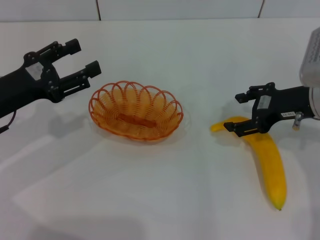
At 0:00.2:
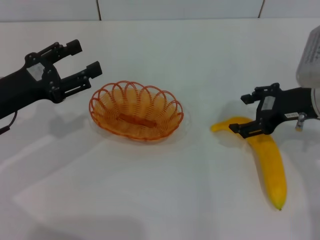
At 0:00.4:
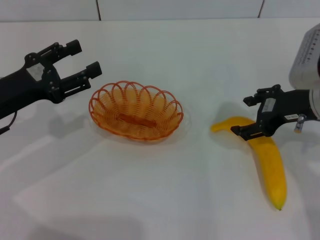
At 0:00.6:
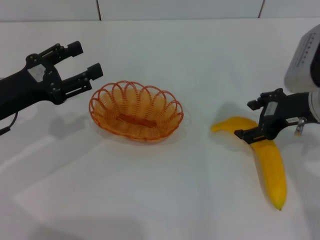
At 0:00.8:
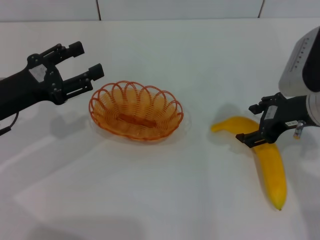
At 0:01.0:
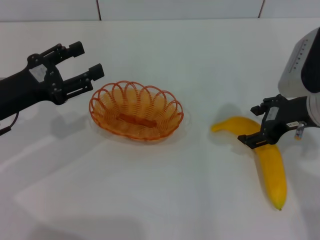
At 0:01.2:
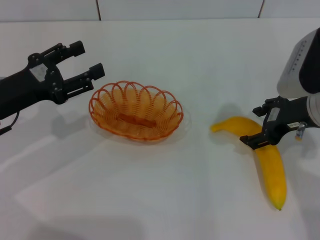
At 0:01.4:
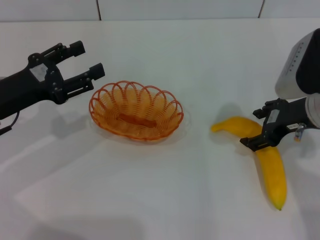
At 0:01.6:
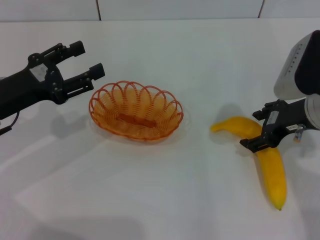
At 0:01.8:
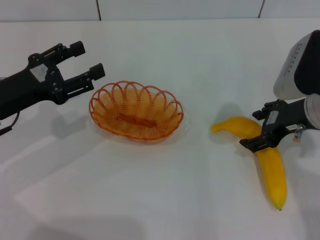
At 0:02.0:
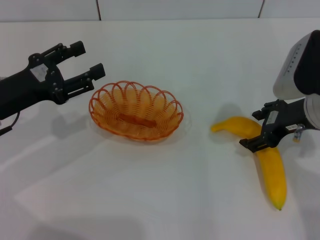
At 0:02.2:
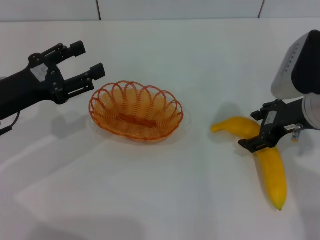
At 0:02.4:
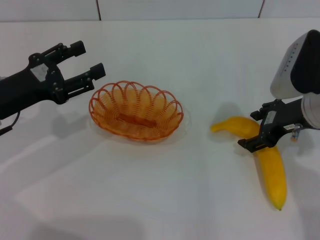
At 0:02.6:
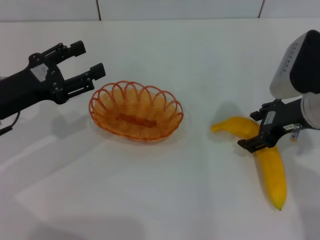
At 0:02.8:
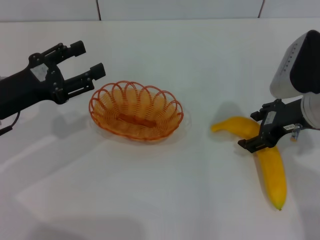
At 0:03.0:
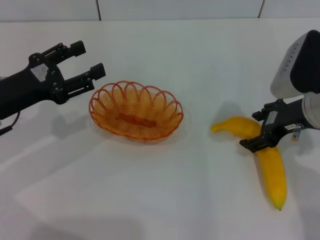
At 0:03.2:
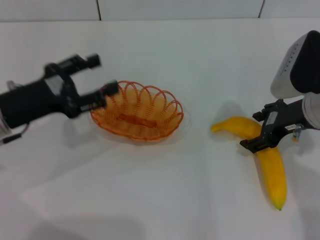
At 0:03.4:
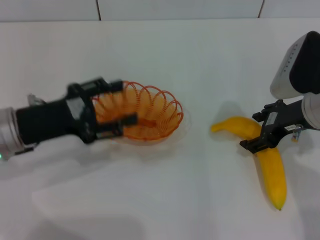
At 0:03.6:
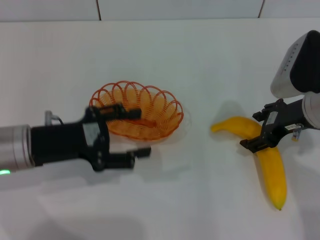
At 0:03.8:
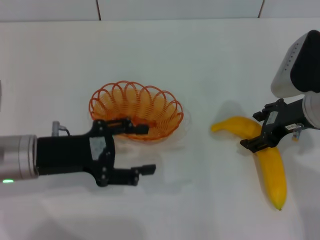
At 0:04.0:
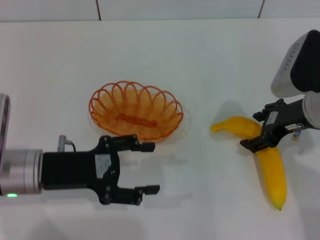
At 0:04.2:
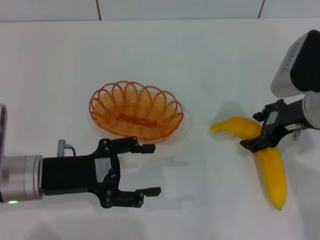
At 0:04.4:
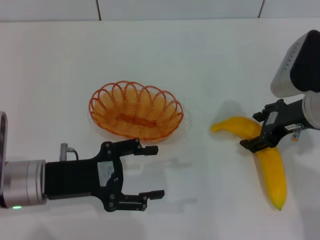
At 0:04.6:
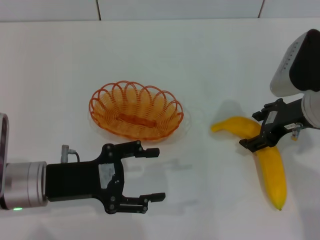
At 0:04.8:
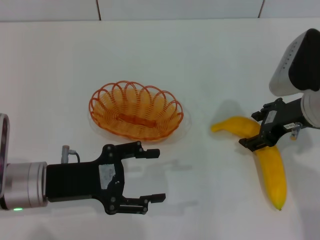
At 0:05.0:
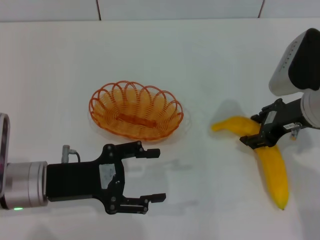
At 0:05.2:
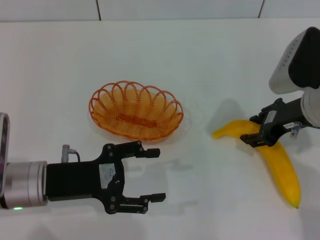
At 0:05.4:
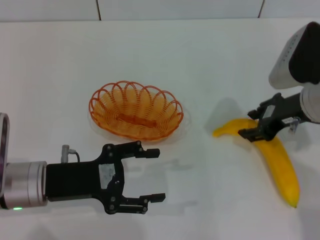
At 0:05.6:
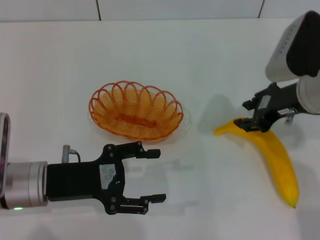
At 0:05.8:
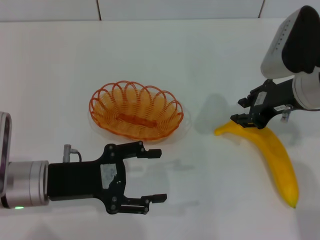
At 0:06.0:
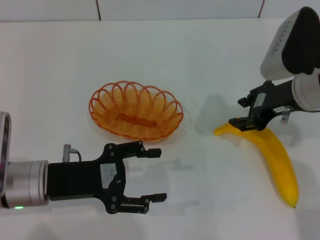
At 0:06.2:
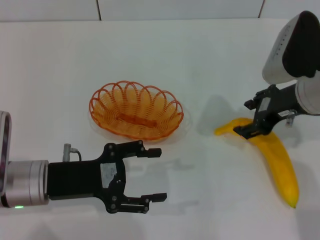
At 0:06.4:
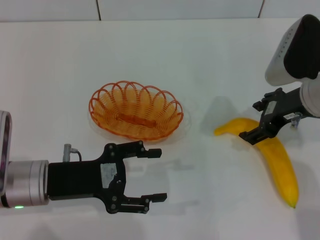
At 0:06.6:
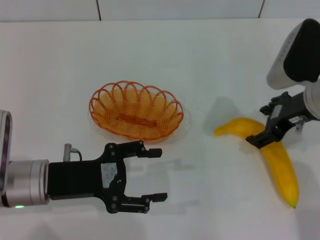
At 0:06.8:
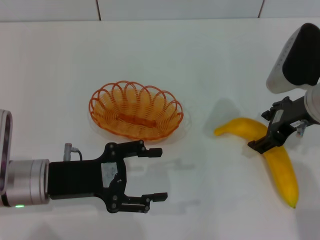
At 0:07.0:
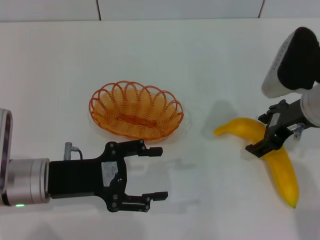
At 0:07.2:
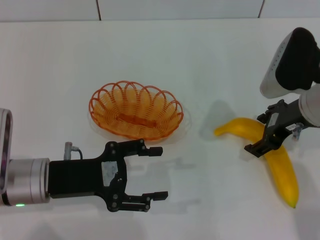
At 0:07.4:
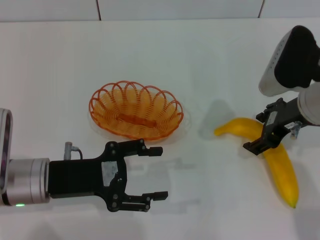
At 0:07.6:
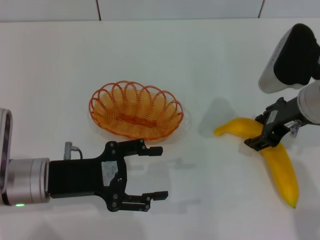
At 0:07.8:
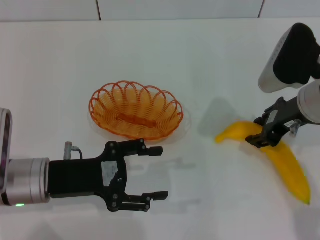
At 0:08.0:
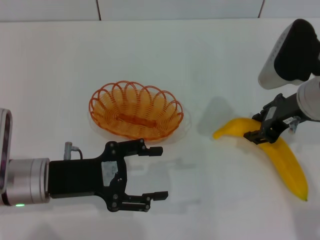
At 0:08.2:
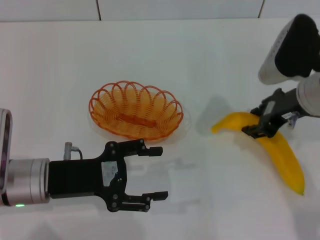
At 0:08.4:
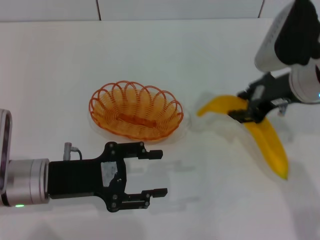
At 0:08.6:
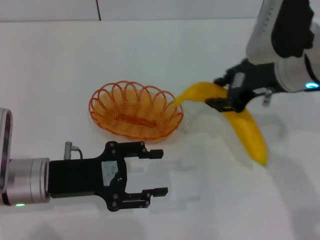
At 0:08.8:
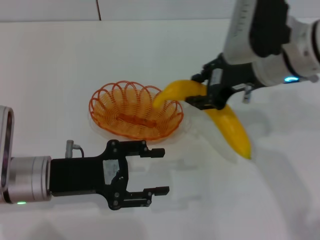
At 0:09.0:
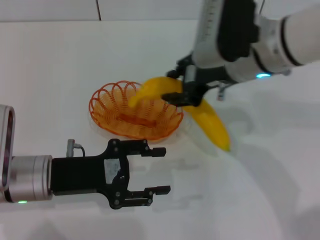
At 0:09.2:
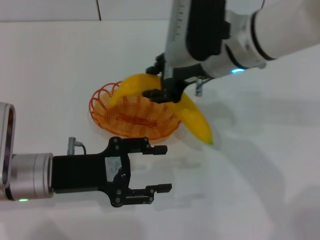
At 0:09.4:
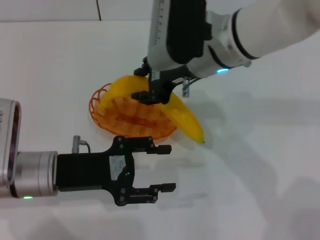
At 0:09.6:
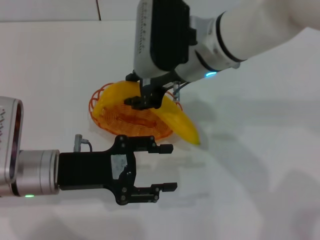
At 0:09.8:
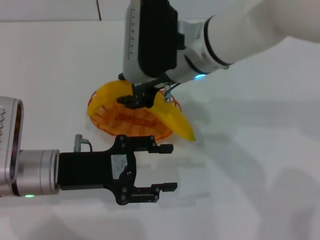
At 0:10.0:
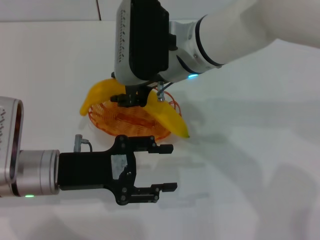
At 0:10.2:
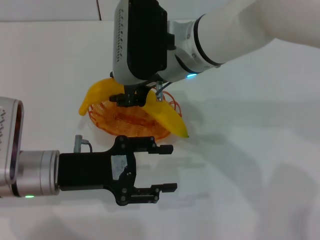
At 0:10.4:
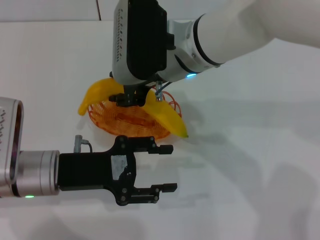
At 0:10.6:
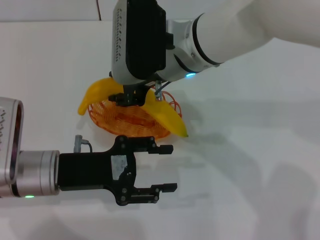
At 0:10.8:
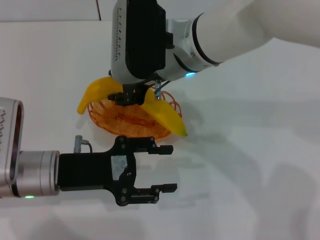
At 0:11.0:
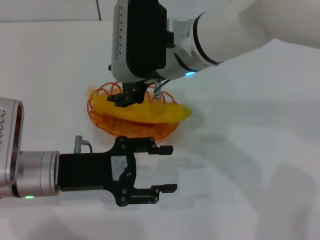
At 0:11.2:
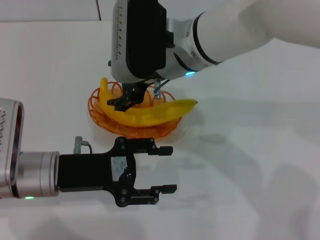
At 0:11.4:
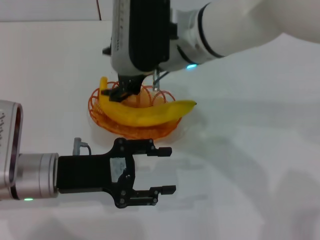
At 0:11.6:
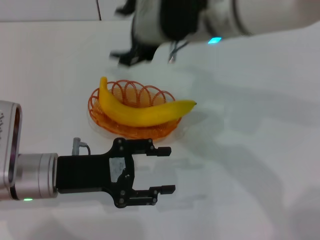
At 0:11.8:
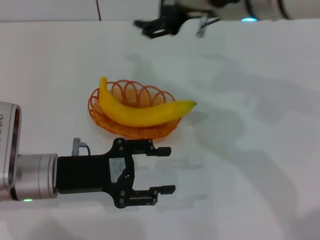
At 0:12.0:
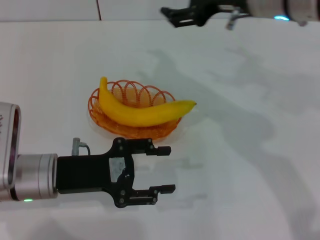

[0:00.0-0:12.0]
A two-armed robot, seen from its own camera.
Step, 0:00.0 to 0:08.2: Pick up the banana with the right gripper.
Step, 0:08.4 to 0:11.4: Place the banana into the basket with the right gripper.
0:00.0 to 0:01.6: There are only small adjustments of the grippers.
0:01.6 to 0:03.0: The two grippers keep their place.
0:03.0 to 0:04.4: The left gripper heads to the right and backward, covering about 10 cm.
0:04.4 to 0:06.0: The right gripper closes up.
0:06.0 to 0:07.6: The right gripper opens its fingers.
0:07.6 to 0:09.0: The right gripper travels to the left by approximately 10 cm, and closes.
0:09.0 to 0:10.4: The right gripper heads to the left, covering about 10 cm.
0:10.4 to 0:12.0: The right gripper is displaced to the right and upward by roughly 15 cm, and opens up.

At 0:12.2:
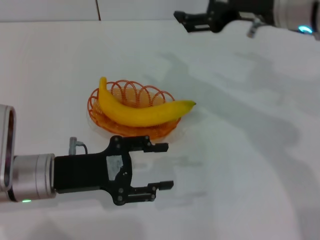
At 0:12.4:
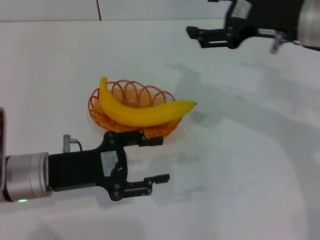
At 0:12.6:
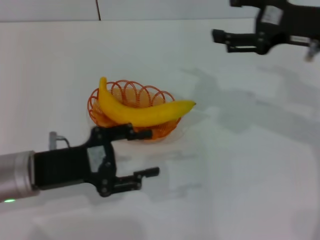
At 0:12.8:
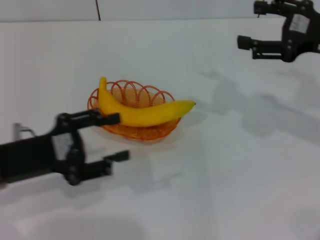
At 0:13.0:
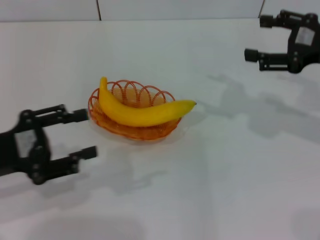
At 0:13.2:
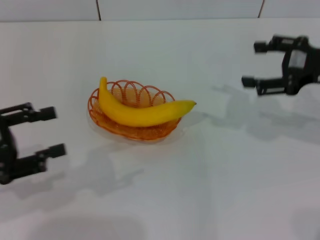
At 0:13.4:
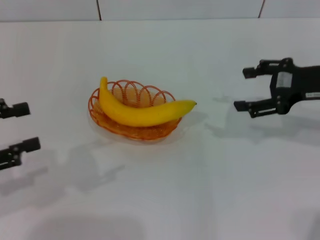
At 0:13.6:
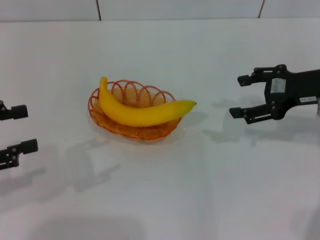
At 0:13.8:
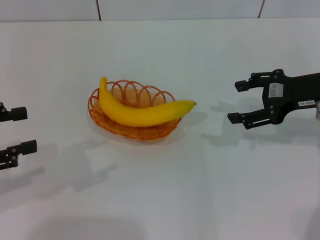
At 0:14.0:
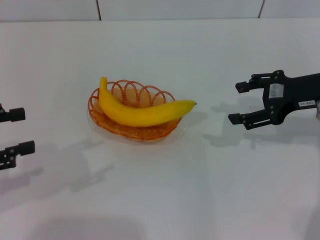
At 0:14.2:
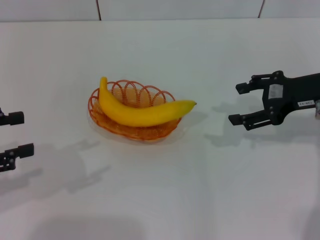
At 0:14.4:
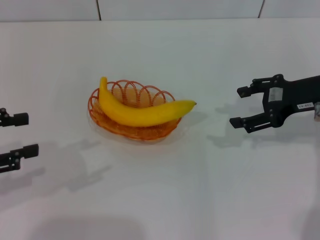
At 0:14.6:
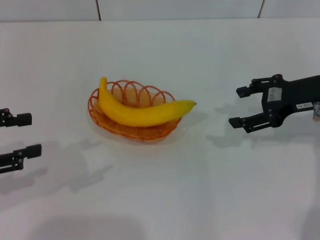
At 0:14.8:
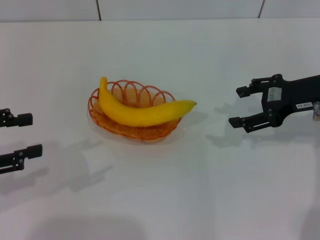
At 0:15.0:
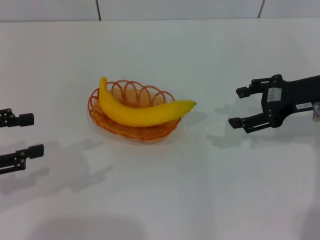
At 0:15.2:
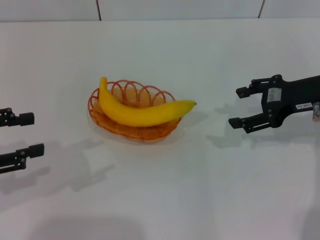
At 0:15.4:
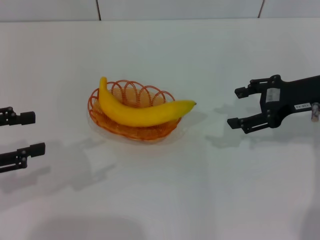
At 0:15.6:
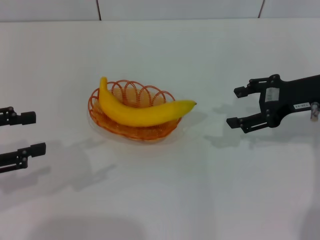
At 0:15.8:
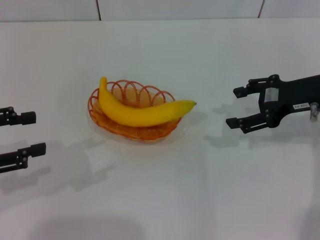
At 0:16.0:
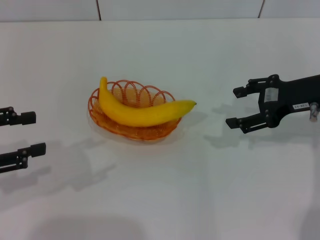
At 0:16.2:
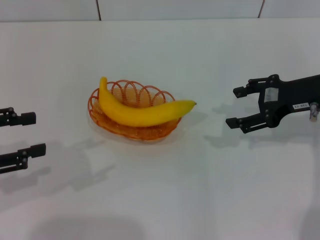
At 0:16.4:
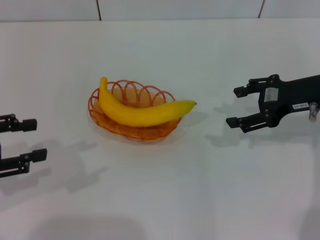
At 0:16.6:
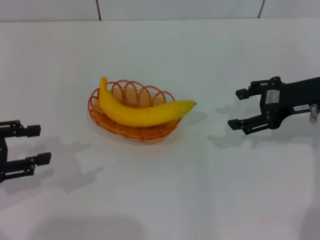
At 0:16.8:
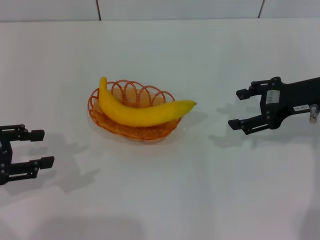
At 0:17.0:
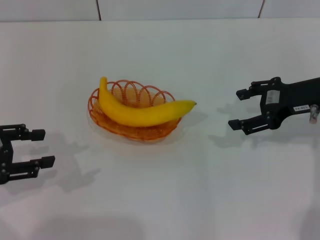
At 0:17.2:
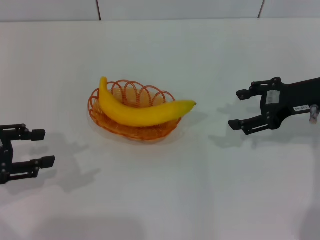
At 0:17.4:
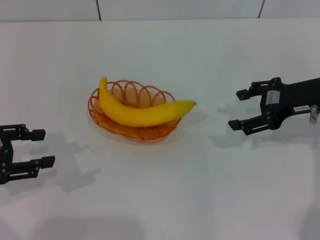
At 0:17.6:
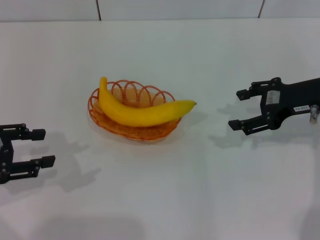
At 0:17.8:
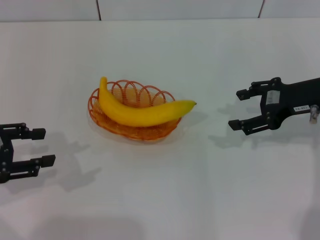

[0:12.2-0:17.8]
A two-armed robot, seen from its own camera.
0:12.2 to 0:13.6: The right gripper goes approximately 10 cm to the right and downward; the left gripper travels to the left and upward by some 15 cm.
0:13.6 to 0:15.0: The grippers make only small movements.
0:15.0 to 0:16.4: Both grippers stay about where they are.
0:16.4 to 0:17.8: The grippers move only a little.
